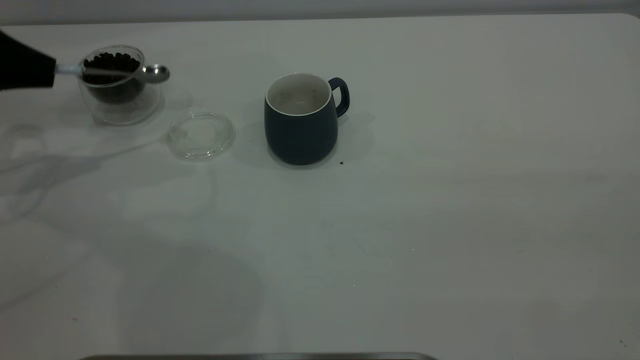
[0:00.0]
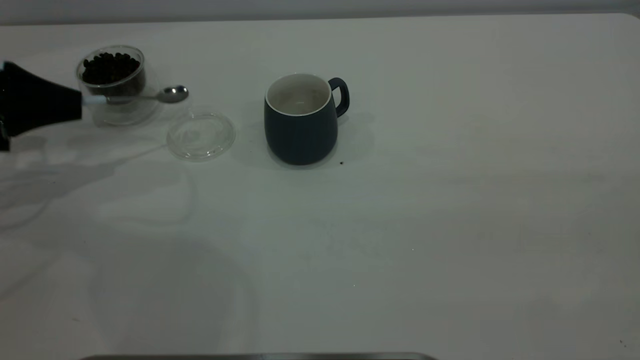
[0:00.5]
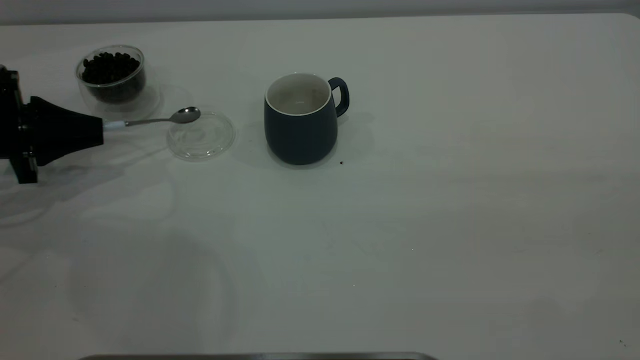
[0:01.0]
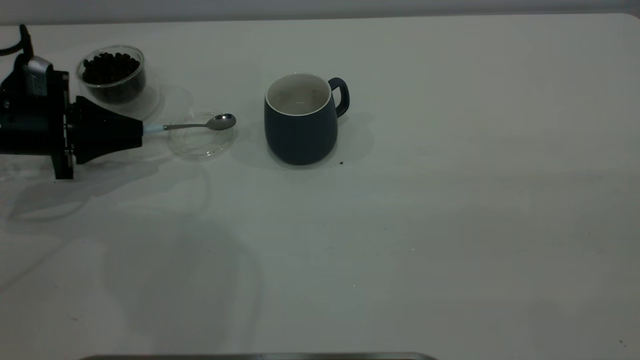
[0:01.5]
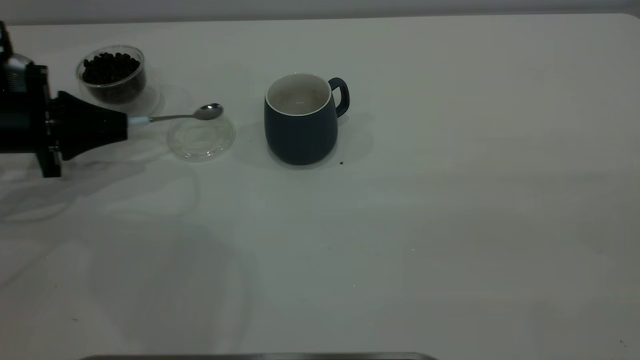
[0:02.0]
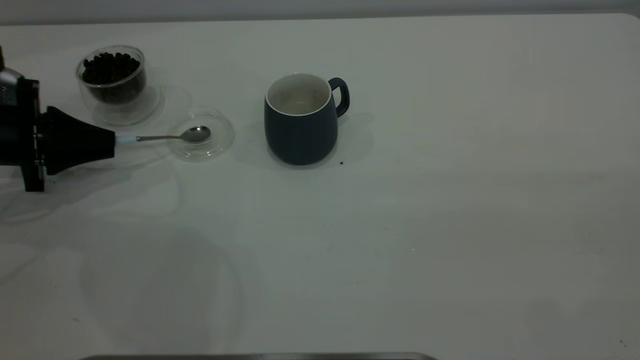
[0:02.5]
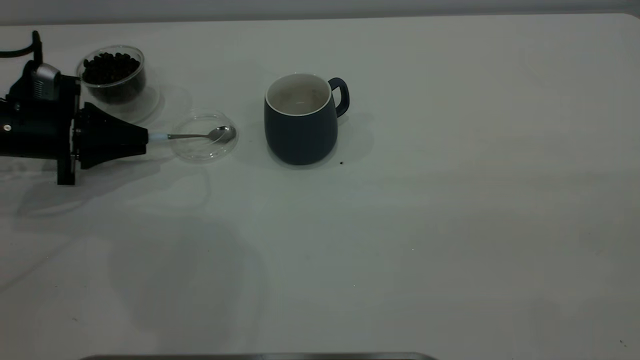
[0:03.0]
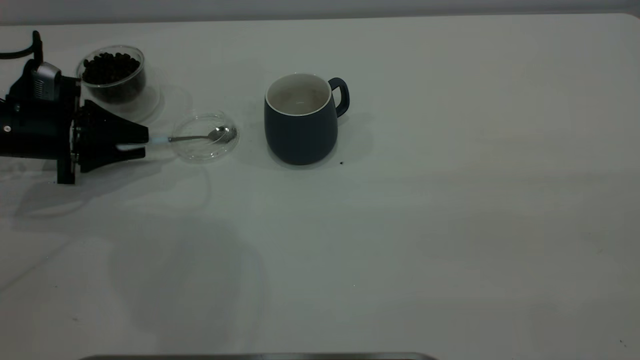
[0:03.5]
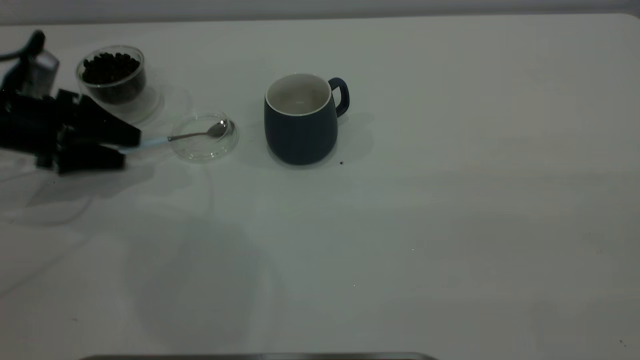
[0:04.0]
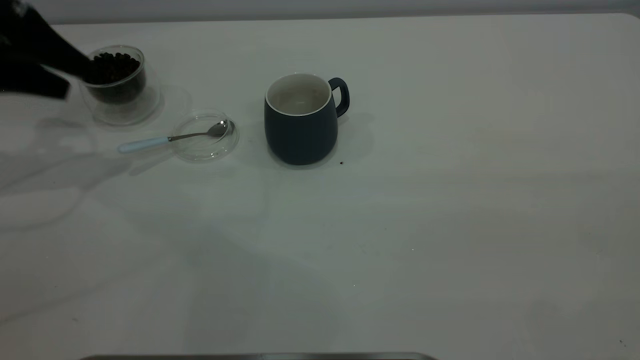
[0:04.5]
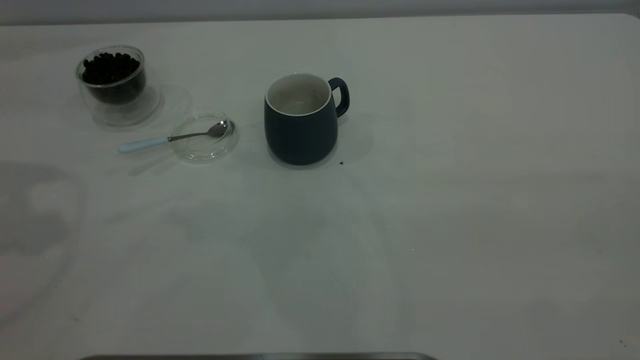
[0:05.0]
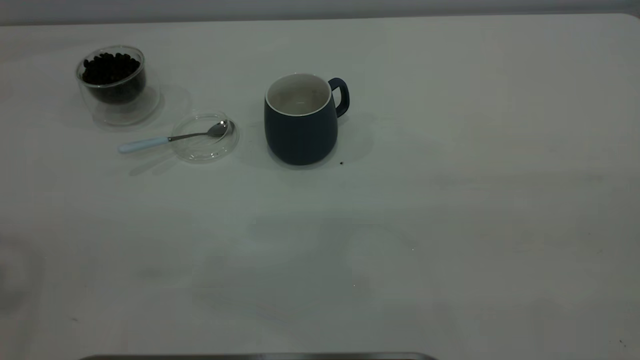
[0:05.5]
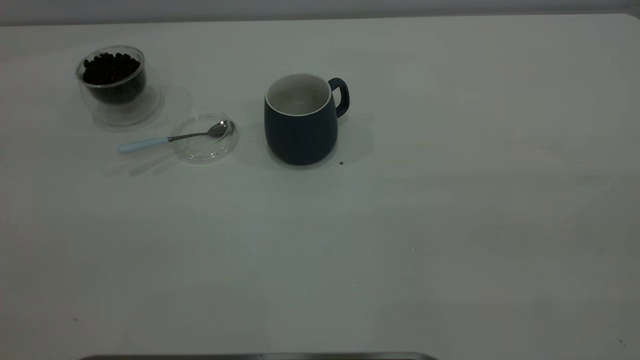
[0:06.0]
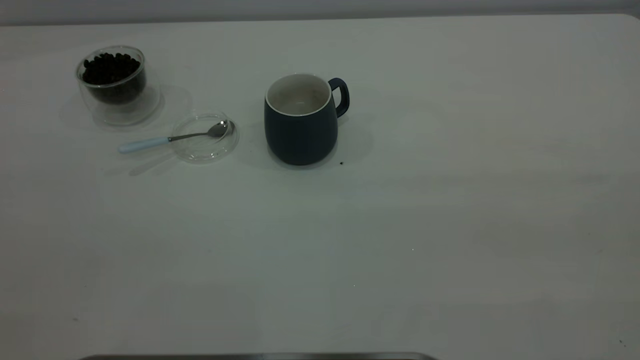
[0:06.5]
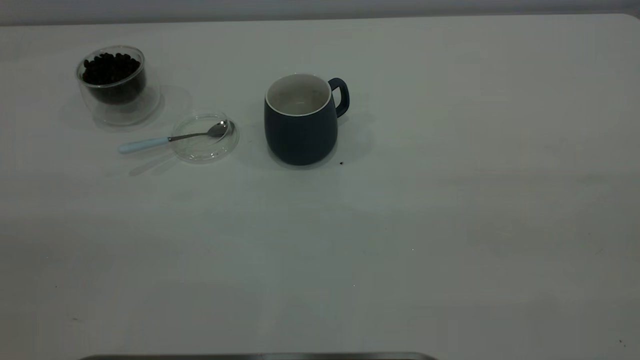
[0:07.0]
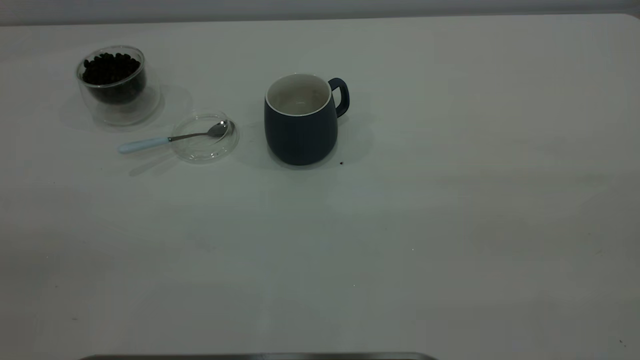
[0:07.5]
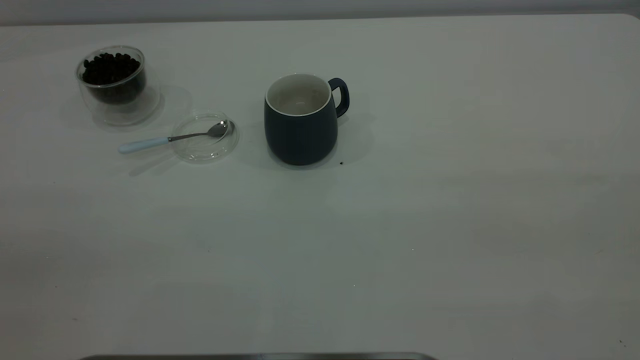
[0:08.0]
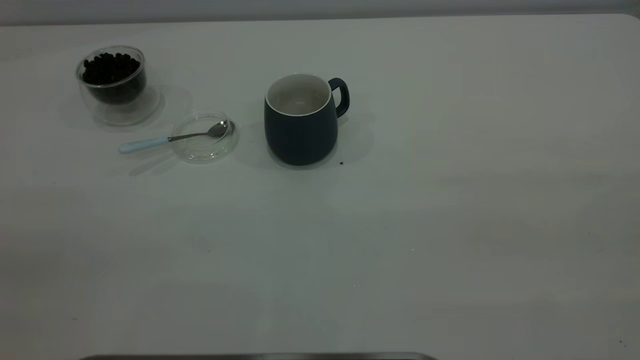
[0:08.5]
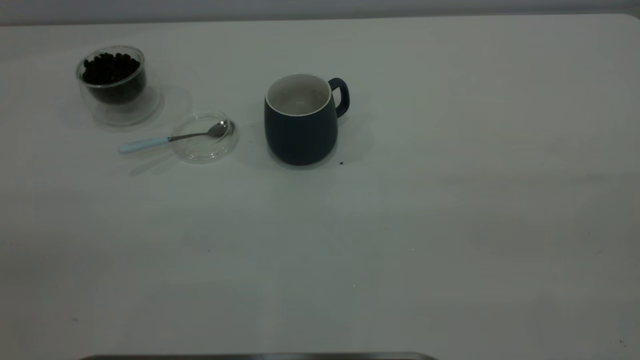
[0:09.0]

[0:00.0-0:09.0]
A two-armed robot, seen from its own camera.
Task of the whole recording: the right gripper place the grey cup in the center of the table, the left gripper take the blue spoon from the cup lid and scoop out the coffee beans from the coffee cup and put them into the grey cup, the left gripper put the spoon back into the cup lid.
Step, 0:00.0 to 0:04.5: Place the spoon back in its original place.
0:00.0 to 0:02.0: The left gripper heads downward, covering roughly 10 cm.
0:02.0 to 0:04.5: The left gripper is displaced upward by about 15 cm, and opens.
0:04.5 to 0:07.0: The left gripper travels backward and upward by roughly 40 cm.

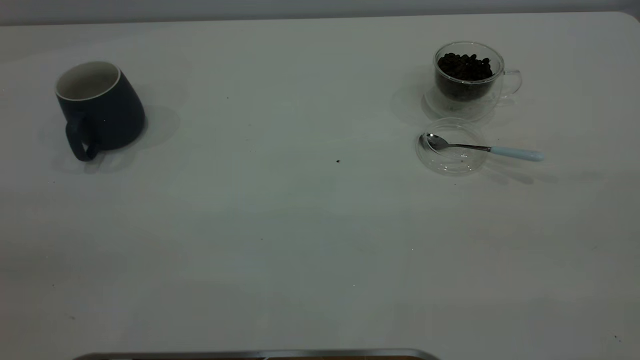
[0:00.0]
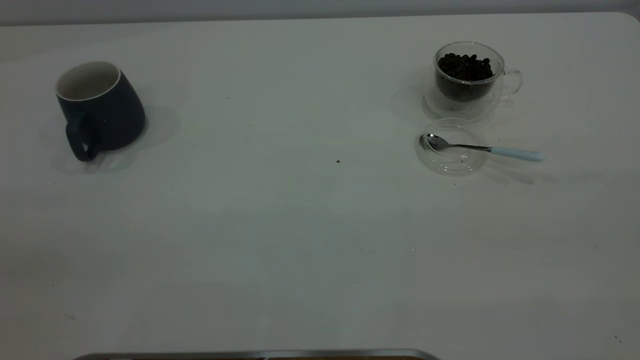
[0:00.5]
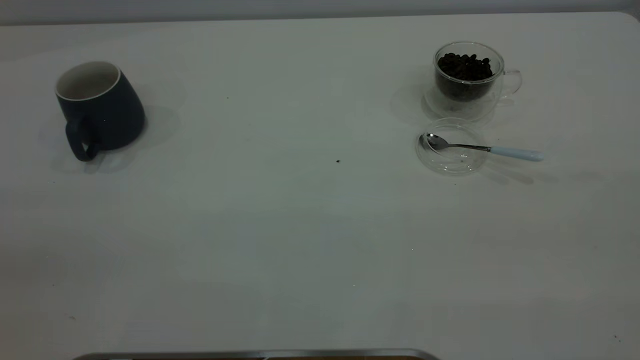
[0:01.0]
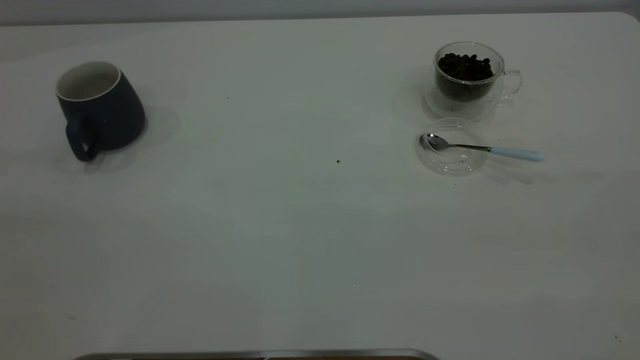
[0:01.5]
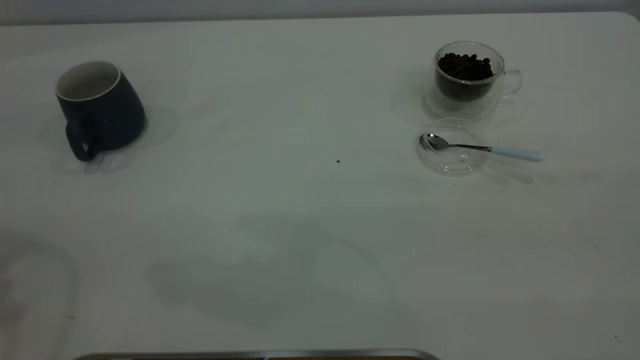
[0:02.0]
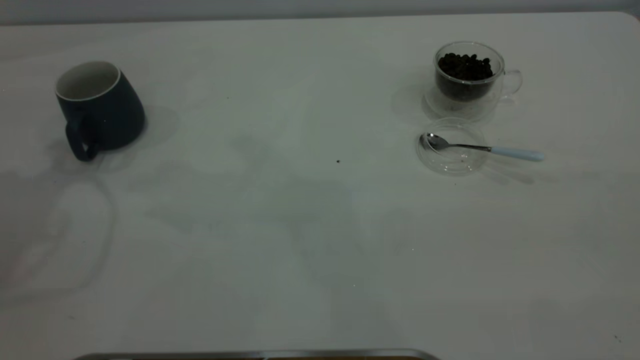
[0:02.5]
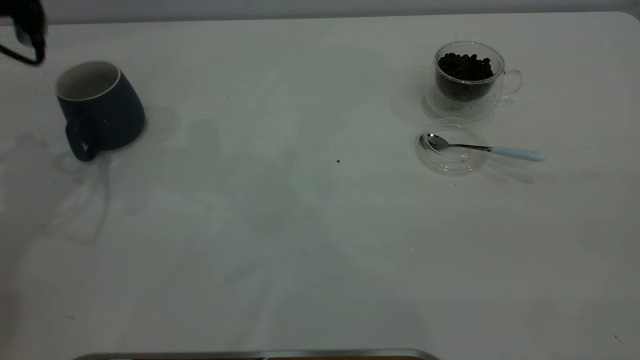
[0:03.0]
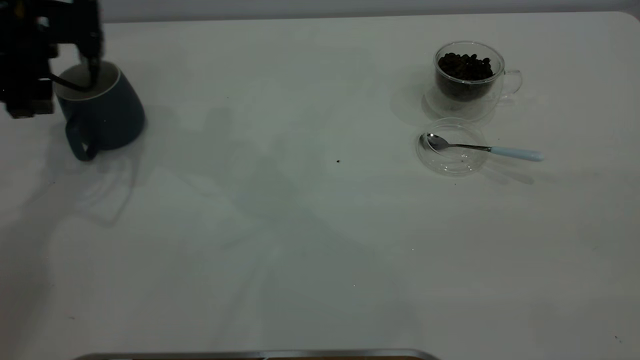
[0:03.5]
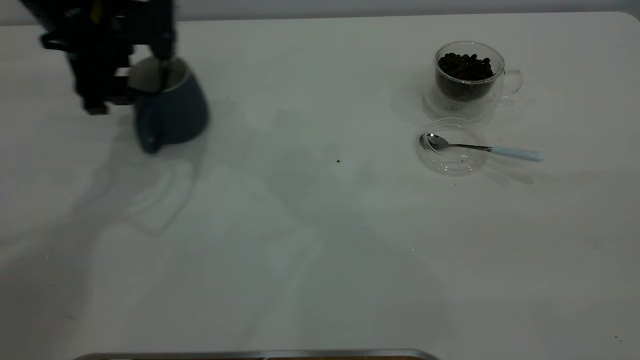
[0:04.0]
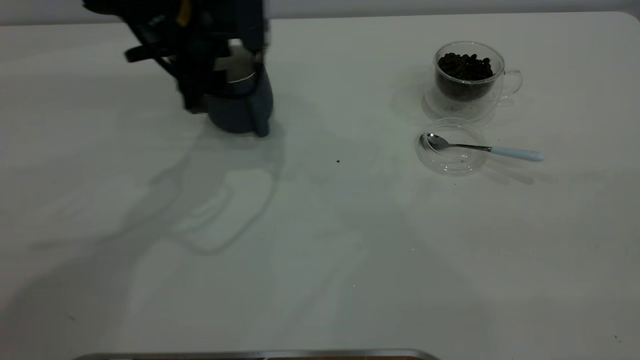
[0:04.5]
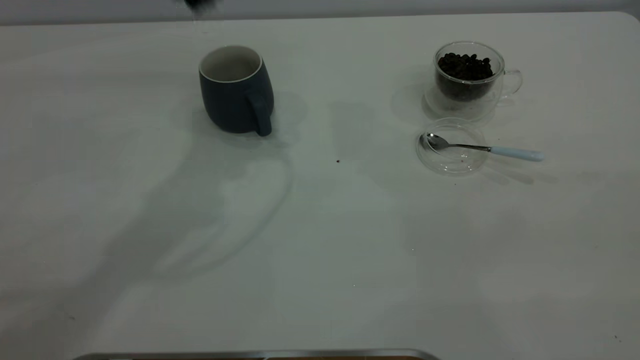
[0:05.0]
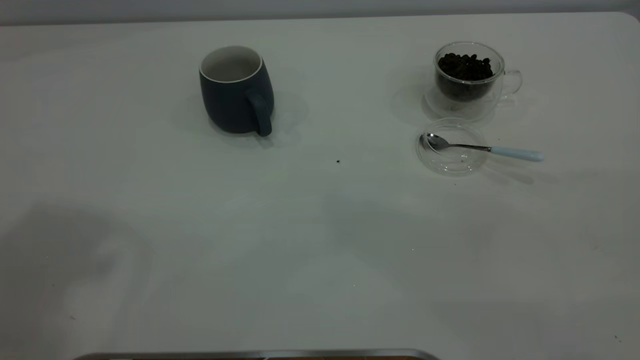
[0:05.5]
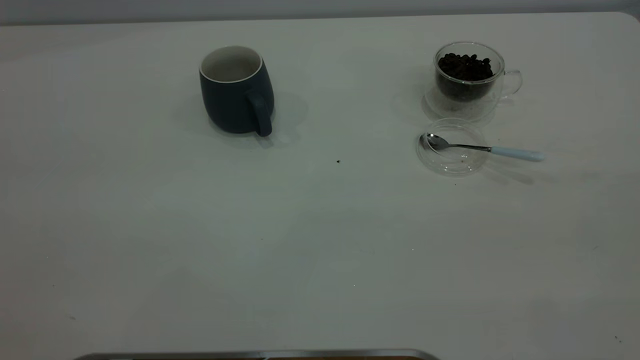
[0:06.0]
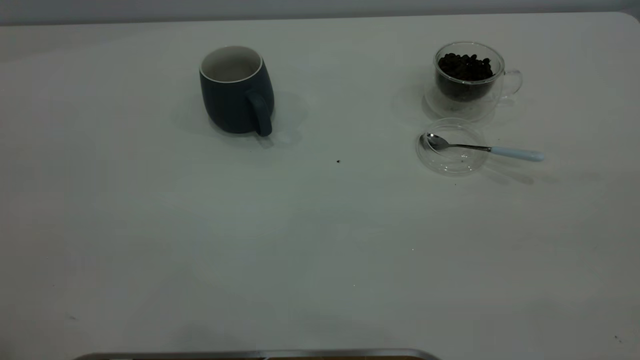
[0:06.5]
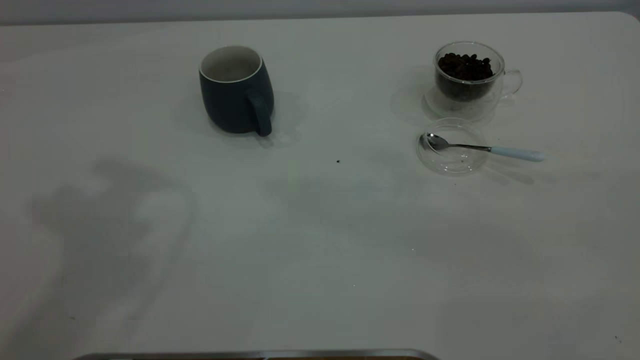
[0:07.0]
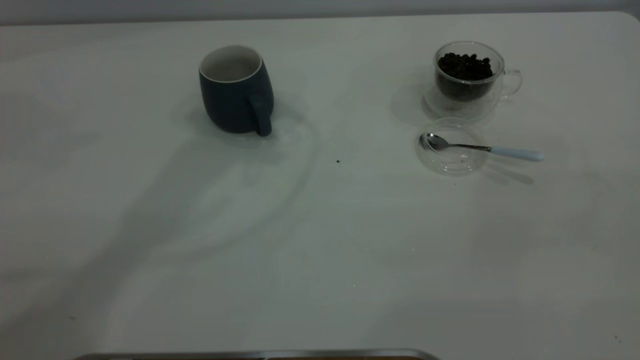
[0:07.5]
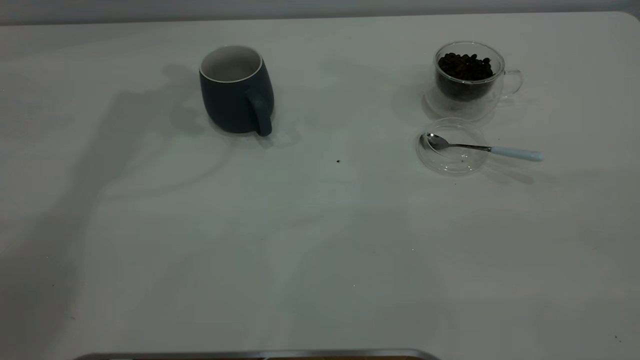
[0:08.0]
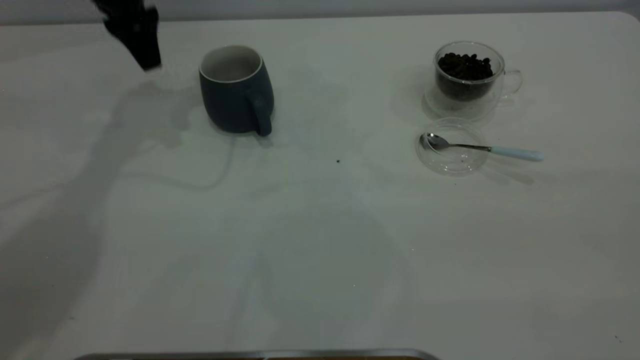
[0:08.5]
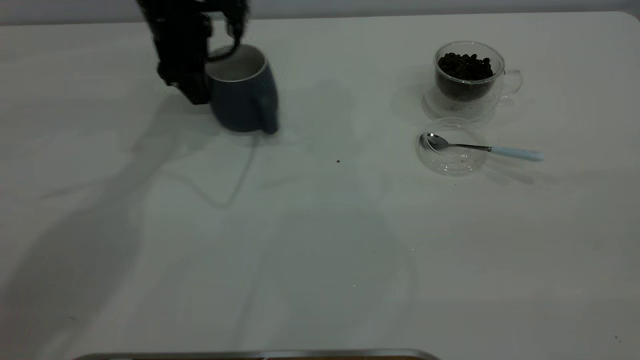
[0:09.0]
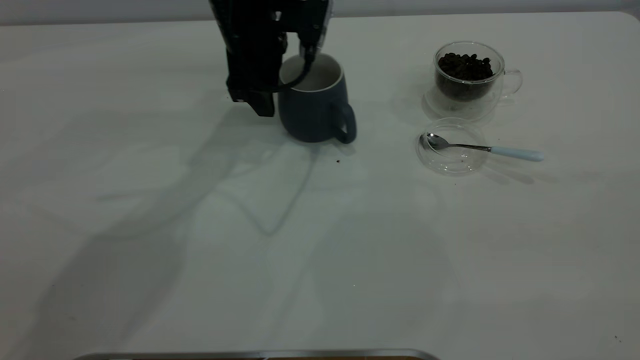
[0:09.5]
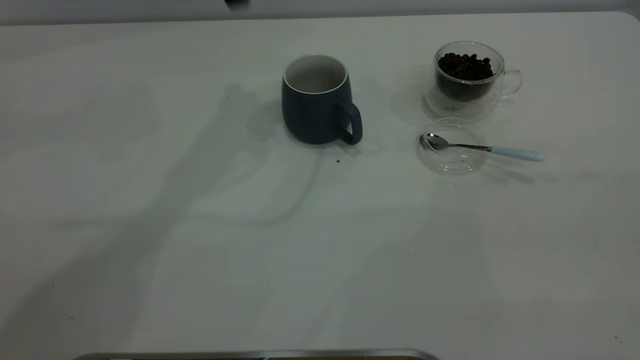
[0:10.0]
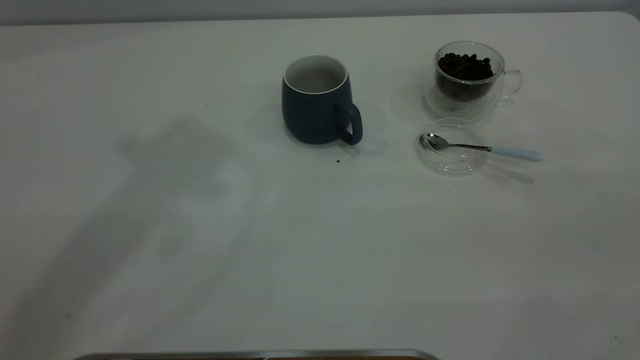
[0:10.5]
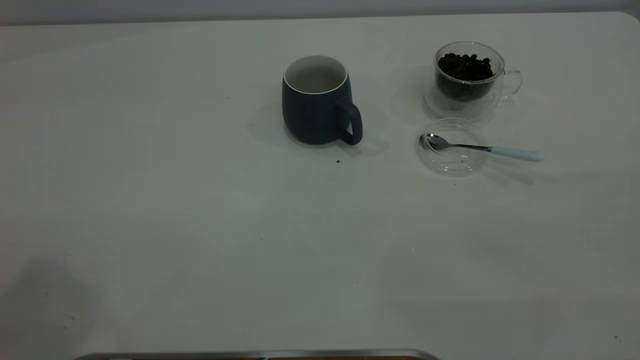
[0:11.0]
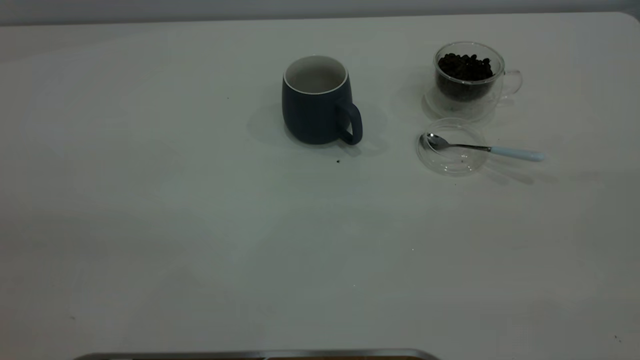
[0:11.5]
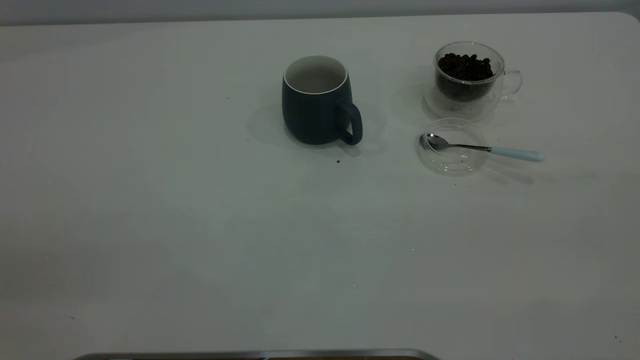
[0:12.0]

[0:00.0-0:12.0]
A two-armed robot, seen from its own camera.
Task of the whole recording: the left gripper place the grey cup in the center of the table, the right gripper take the blue spoon from the cup lid and scoop out the coffee beans from the coffee cup and put them into the grey cup, the right gripper put the spoon back into the cup lid.
Step, 0:00.0 to 0:09.5: Move the cup to the center of view.
0:02.0 to 0:04.0: The left gripper moves downward, forward and to the right, approximately 30 cm.
0:04.0 to 0:06.0: The left gripper goes approximately 50 cm backward and upward.
0:08.0 to 0:10.0: The left gripper goes about 10 cm to the right, and travels downward and back again, roughly 20 cm each way.
